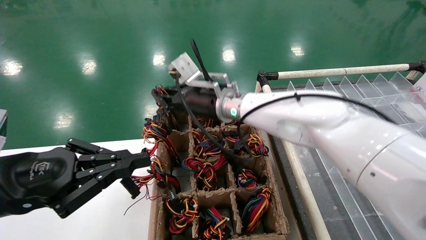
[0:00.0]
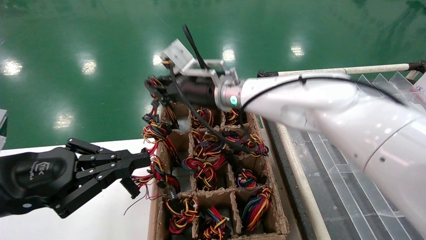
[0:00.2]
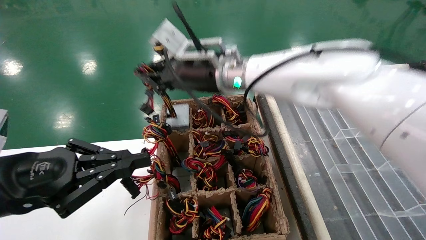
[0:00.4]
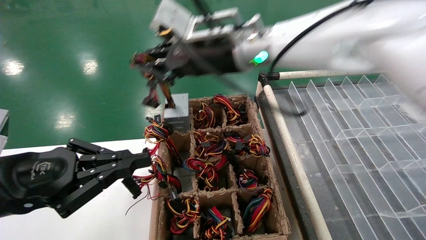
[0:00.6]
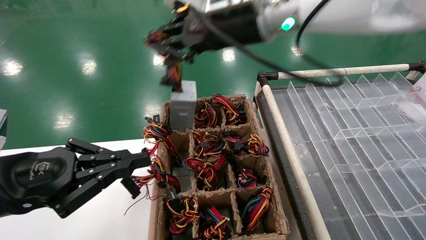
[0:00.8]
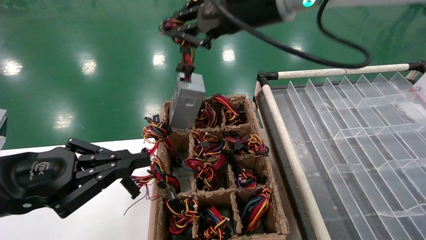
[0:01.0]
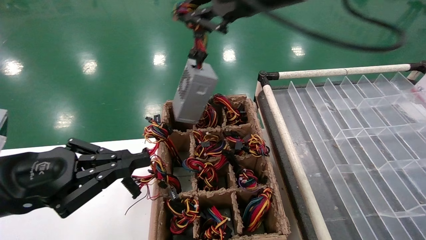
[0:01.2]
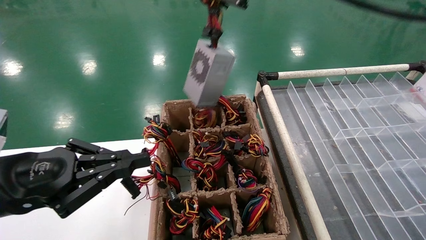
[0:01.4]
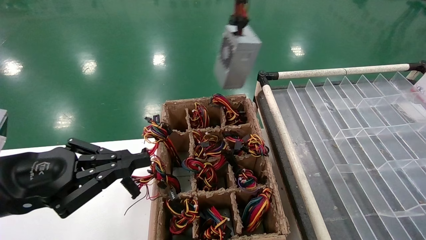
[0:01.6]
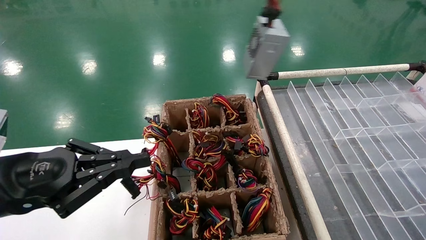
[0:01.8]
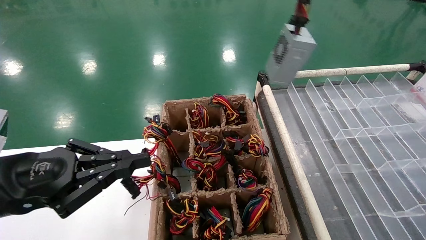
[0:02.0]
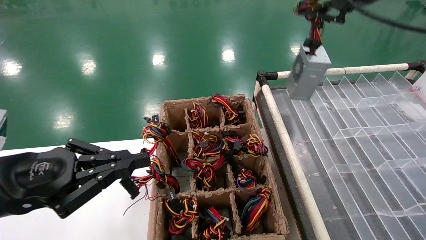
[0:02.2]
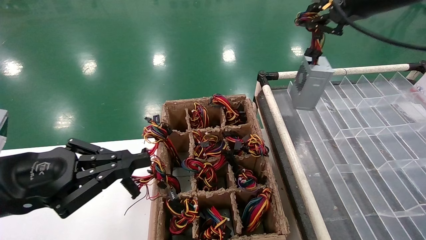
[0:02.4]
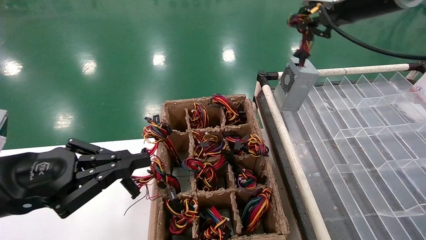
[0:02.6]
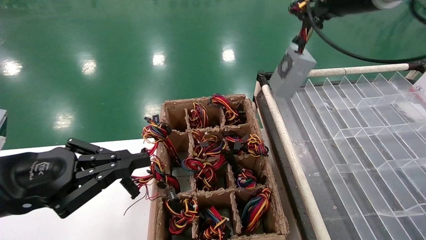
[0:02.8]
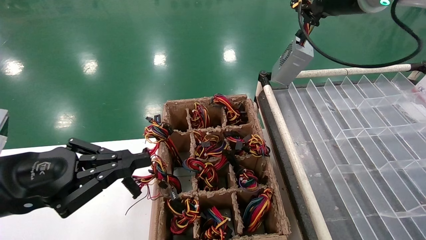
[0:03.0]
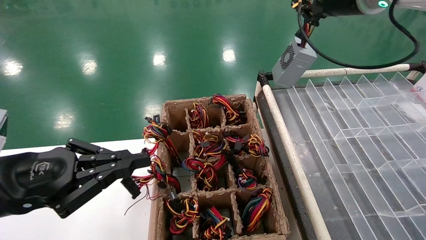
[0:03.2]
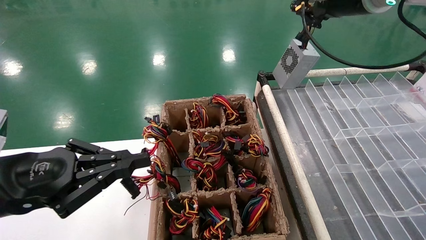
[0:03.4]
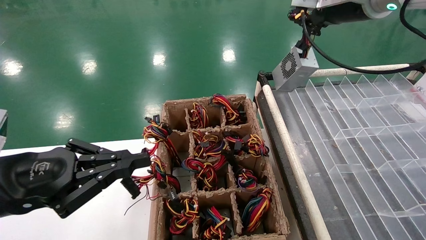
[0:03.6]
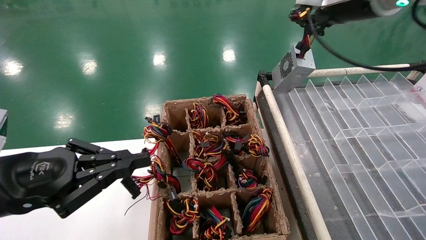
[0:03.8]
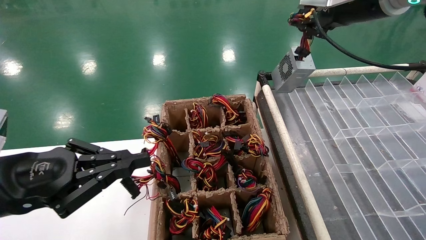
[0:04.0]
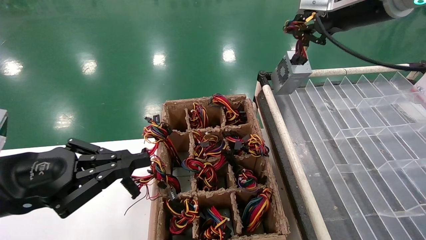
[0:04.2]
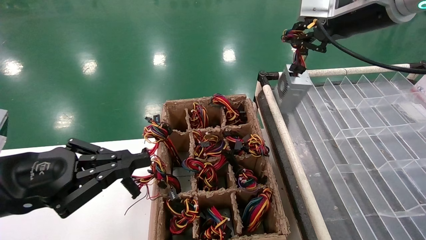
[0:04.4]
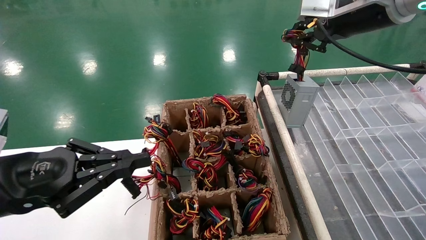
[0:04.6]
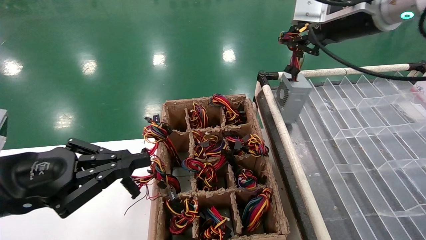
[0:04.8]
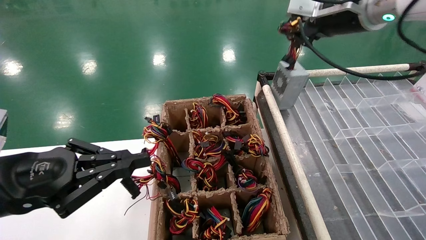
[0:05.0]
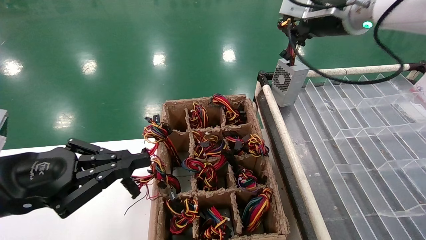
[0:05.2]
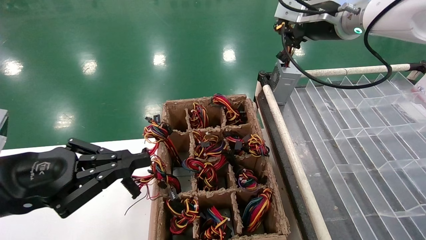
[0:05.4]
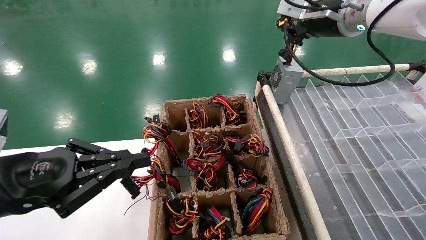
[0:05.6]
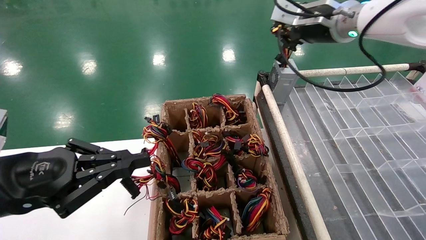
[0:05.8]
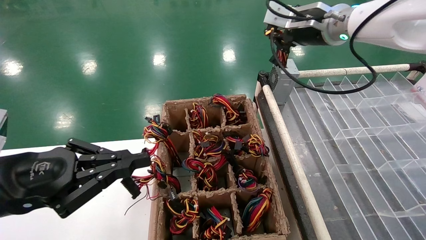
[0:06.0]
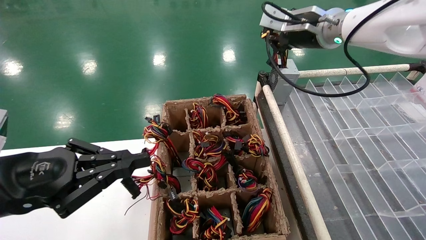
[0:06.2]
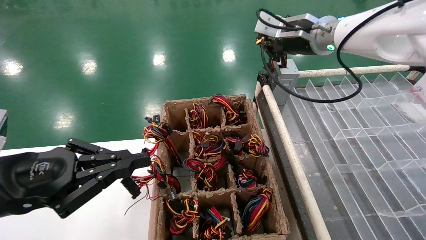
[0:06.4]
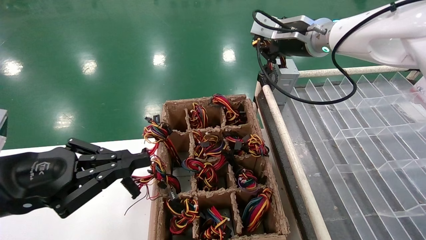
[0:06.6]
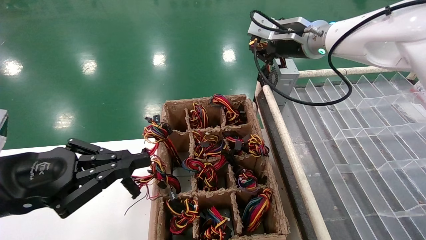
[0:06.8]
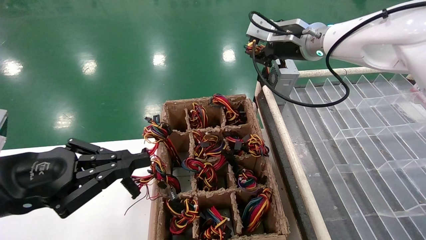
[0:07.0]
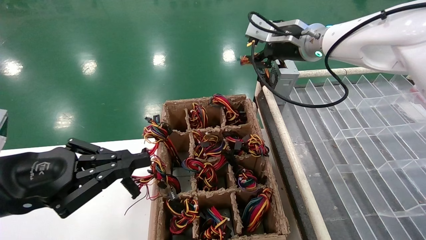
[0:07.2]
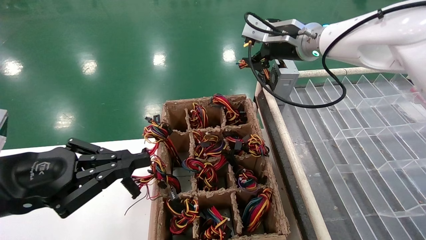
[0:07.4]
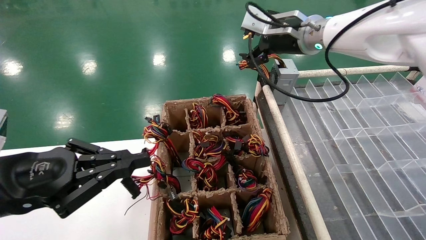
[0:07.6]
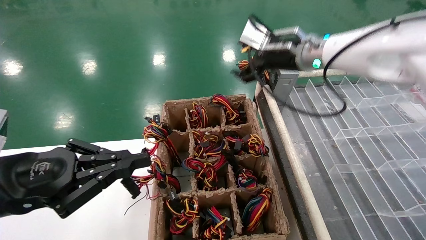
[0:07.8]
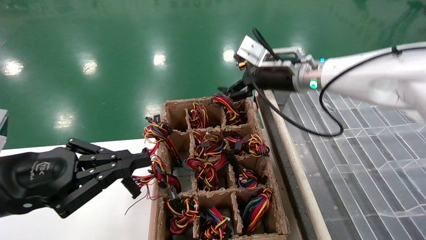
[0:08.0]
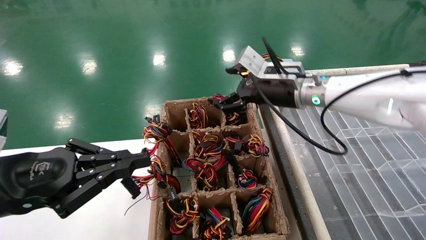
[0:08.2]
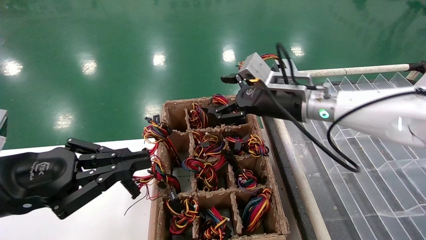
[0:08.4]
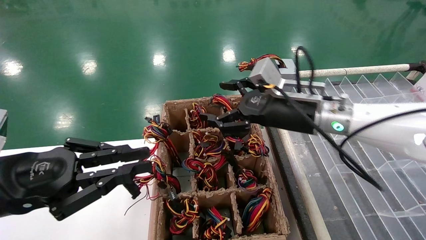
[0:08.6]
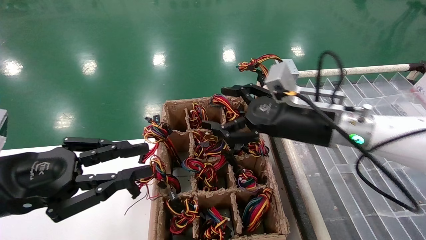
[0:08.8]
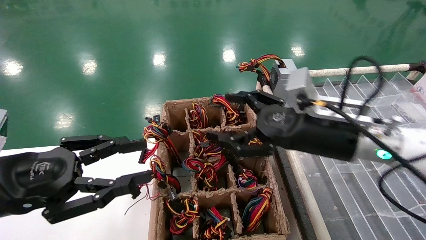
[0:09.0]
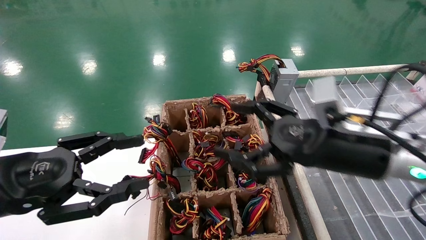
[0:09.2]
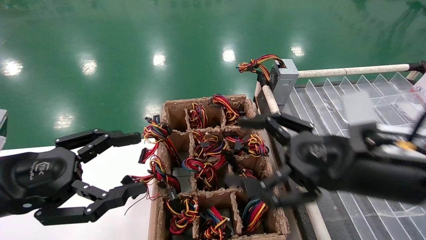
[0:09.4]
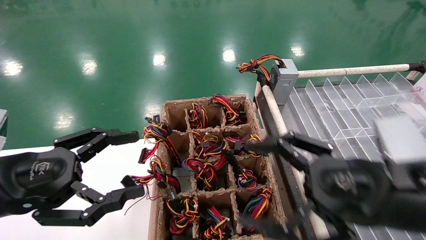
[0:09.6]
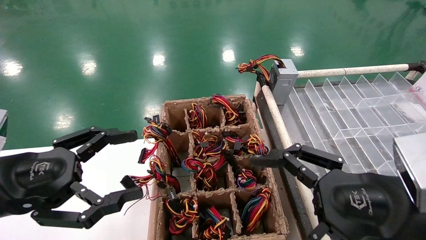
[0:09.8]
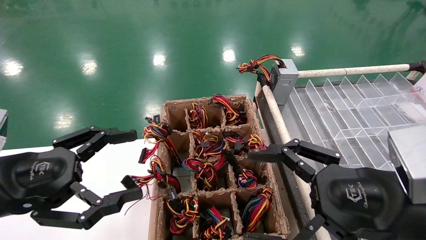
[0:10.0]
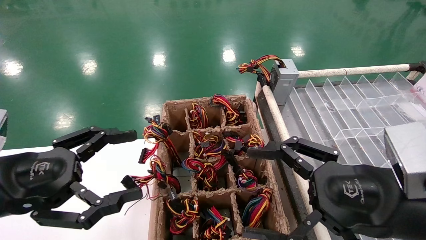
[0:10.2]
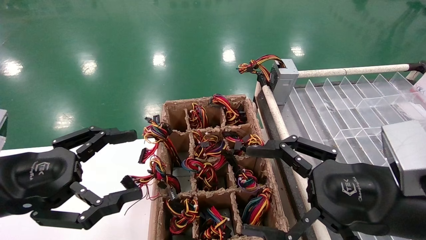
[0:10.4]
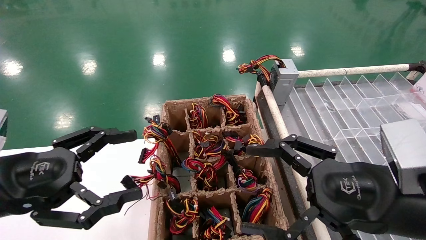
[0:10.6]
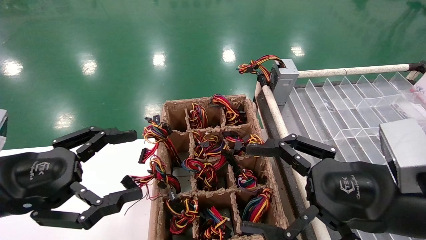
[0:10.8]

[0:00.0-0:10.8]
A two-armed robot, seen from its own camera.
Step, 0:00.0 to 0:08.0: Place the main unit power supply in the designated area.
0:00.0 to 0:01.6: The right gripper moves upward, to the right and backward, roughly 35 cm.
0:01.6 to 0:03.0: The right gripper heads forward and to the right, covering some 15 cm.
0:03.0 to 0:04.6: There are only small adjustments of the grippers.
0:04.6 to 0:06.2: The right gripper heads forward and to the left, covering about 10 cm.
0:06.2 to 0:07.8: The right gripper moves downward, approximately 5 cm, and opens its fingers.
0:07.8 to 0:09.2: The left gripper opens up. The right gripper heads backward and downward, covering roughly 25 cm.
0:09.2 to 0:10.8: The left gripper opens. Meanwhile the right gripper travels backward by some 10 cm.
